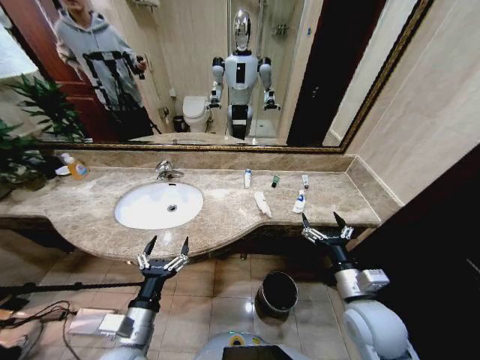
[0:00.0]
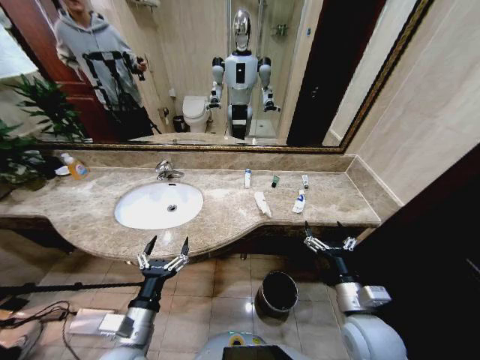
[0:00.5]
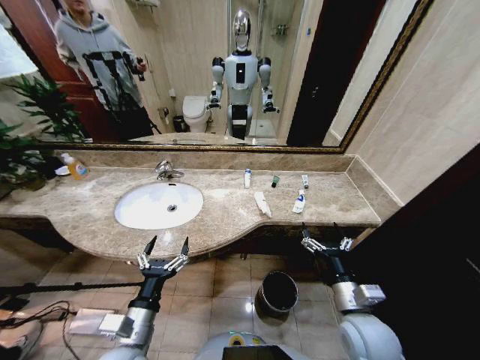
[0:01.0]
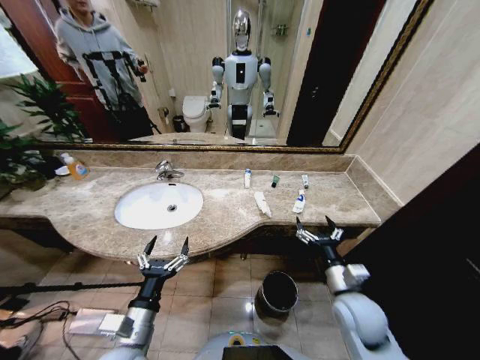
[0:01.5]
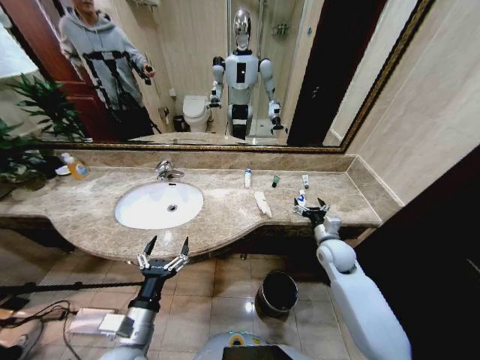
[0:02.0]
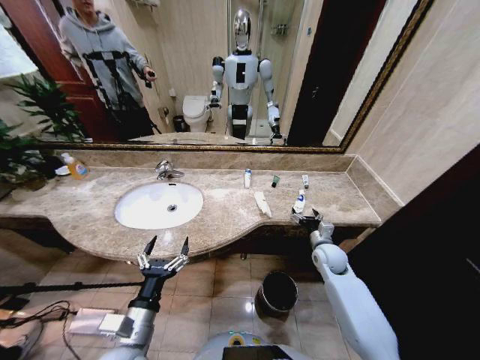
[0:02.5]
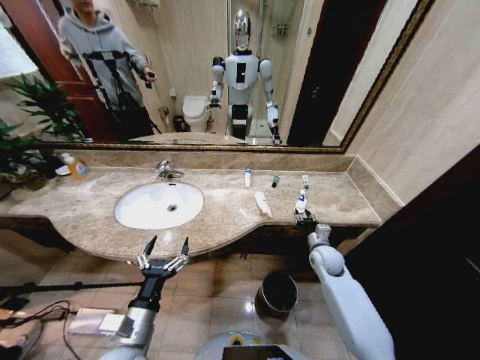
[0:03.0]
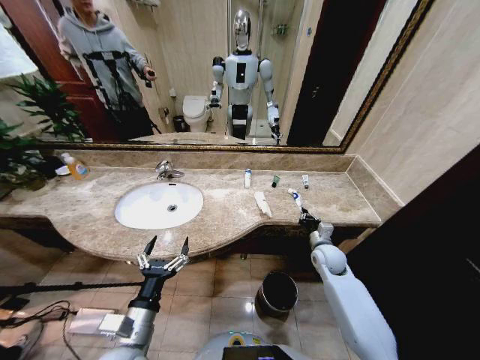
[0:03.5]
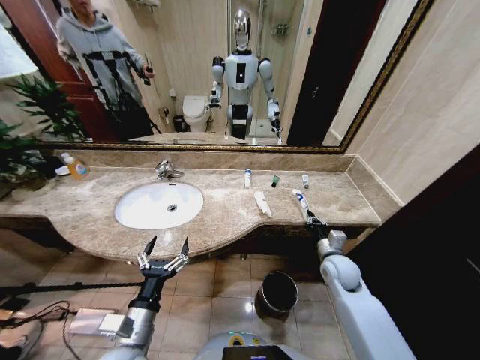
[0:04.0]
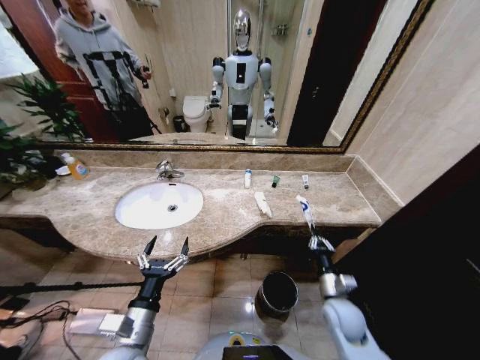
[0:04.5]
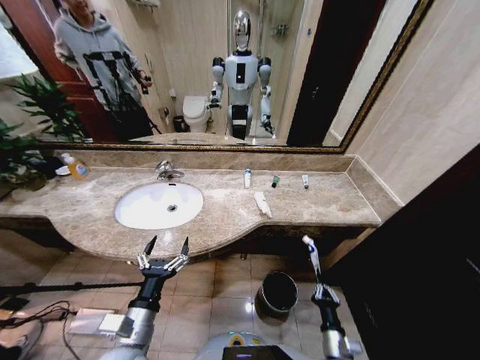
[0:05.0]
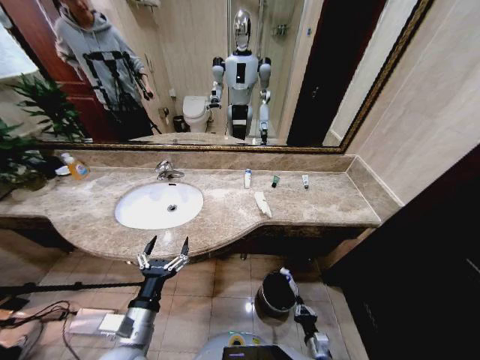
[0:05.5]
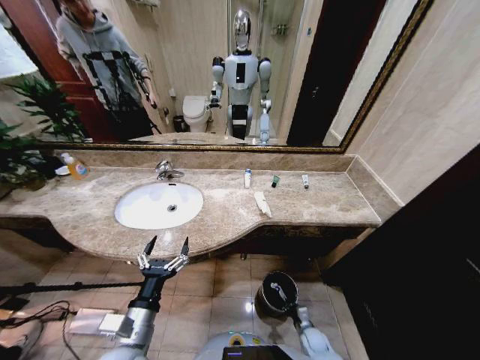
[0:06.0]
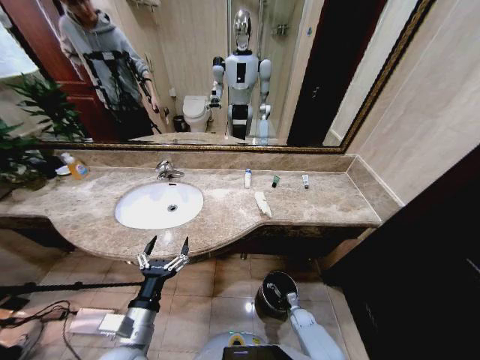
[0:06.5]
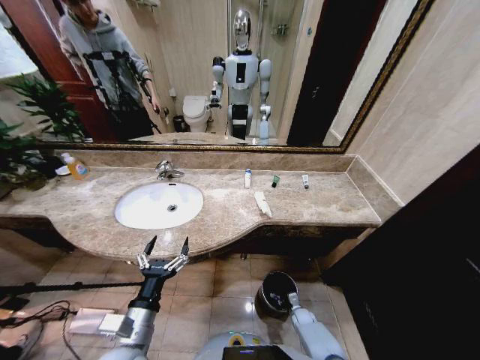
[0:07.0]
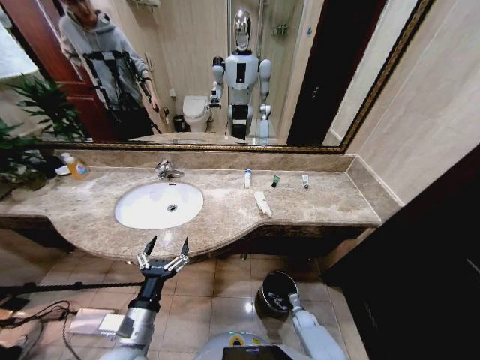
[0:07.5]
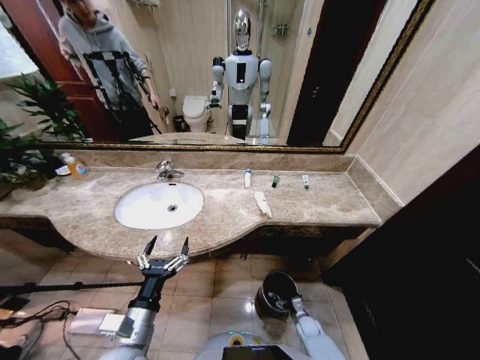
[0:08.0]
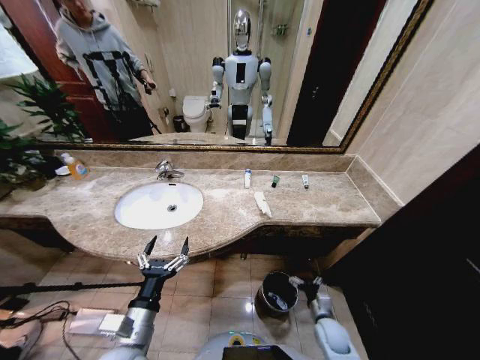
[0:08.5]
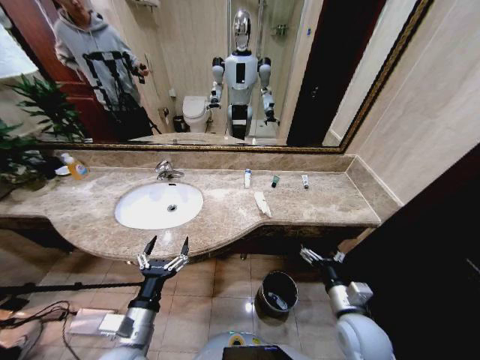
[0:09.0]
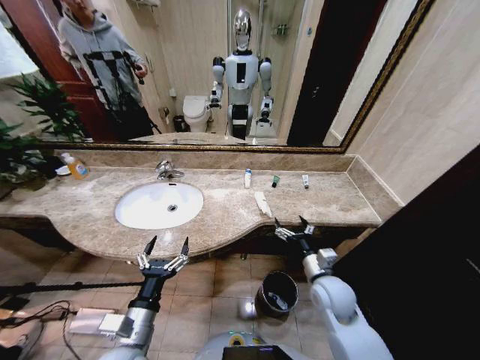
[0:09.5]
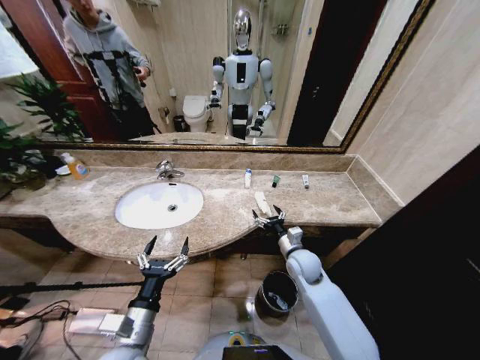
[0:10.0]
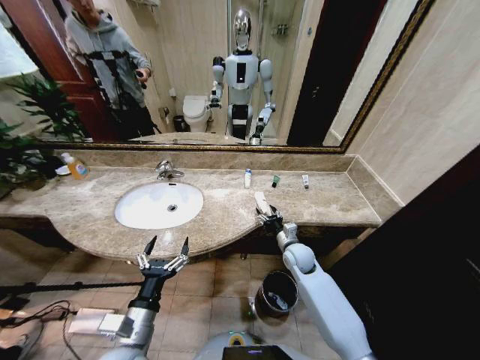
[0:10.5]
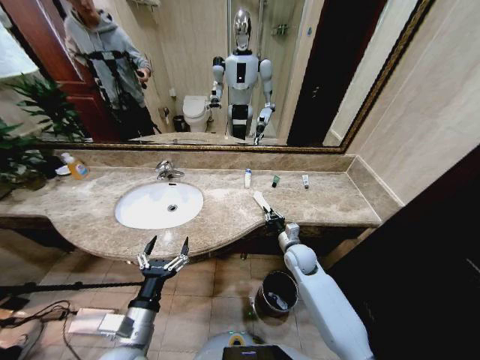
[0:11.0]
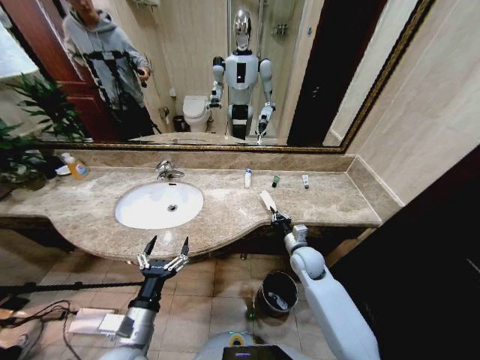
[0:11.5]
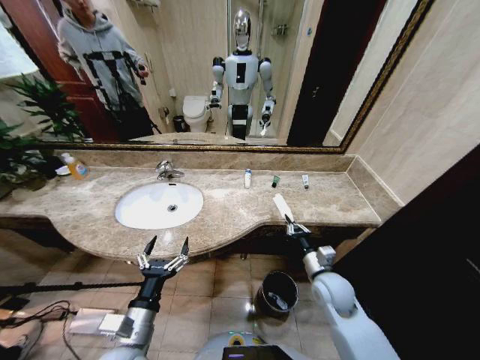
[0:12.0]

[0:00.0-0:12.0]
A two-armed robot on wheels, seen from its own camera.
Task of the whole recording: Pick up the trash from the sink and place it in the trash bin.
0:02.0 to 0:04.0: The right gripper closes.
0:04.0 to 0:06.0: The right gripper moves downward and backward, roughly 35 cm.
0:06.0 to 0:08.0: The right gripper opens its fingers.
0:08.0 to 0:10.0: The right gripper moves upward, roughly 35 cm.
0:10.0 to 0:12.0: The right gripper is displaced backward by approximately 10 cm, and closes its fingers.

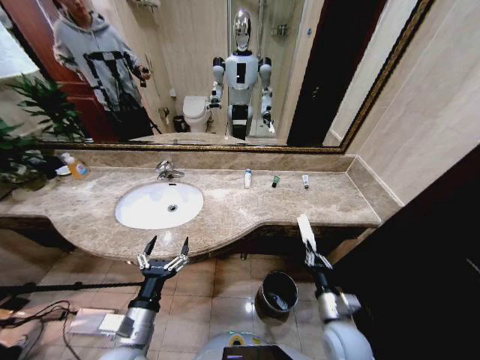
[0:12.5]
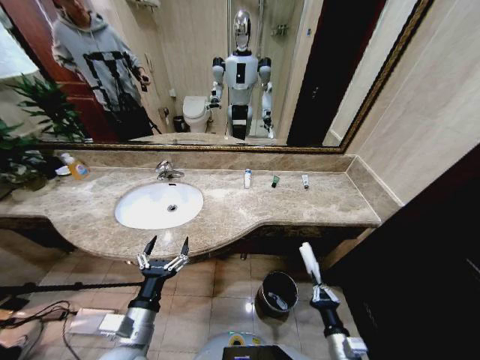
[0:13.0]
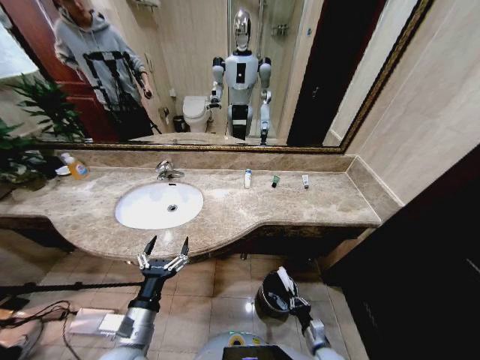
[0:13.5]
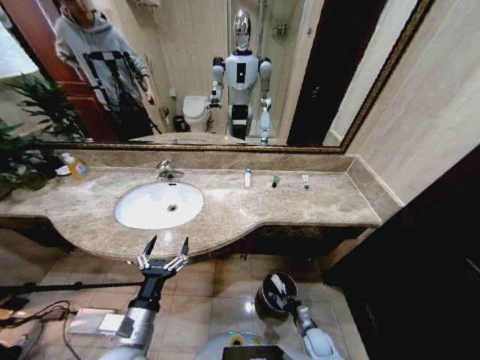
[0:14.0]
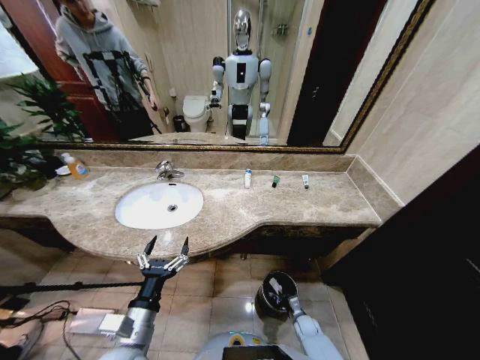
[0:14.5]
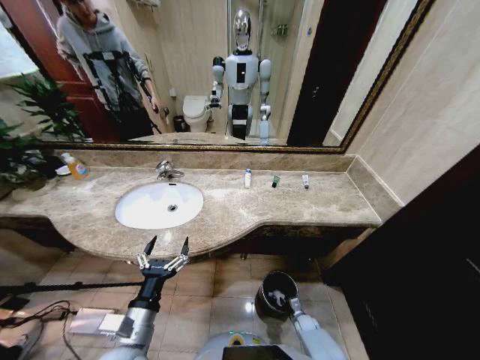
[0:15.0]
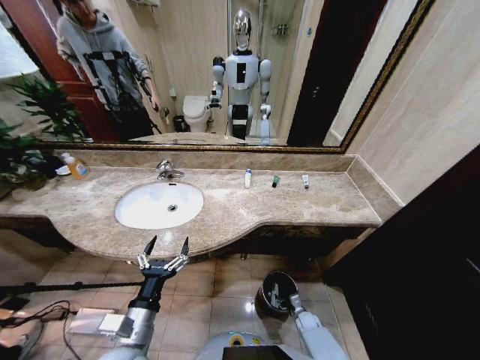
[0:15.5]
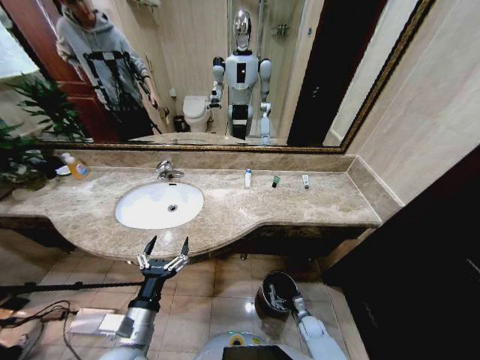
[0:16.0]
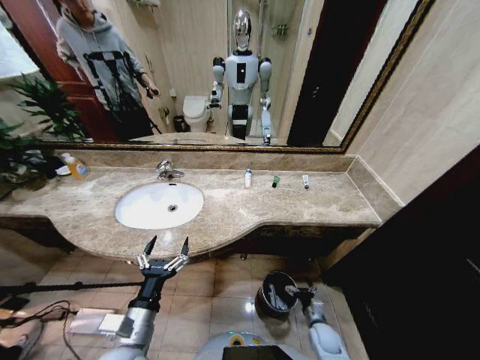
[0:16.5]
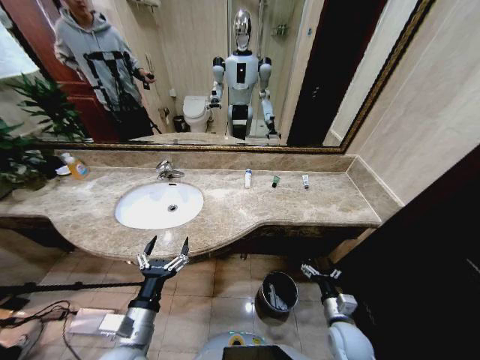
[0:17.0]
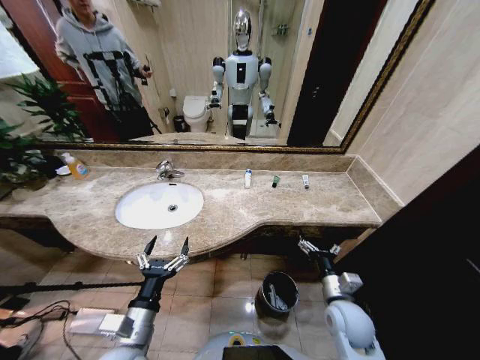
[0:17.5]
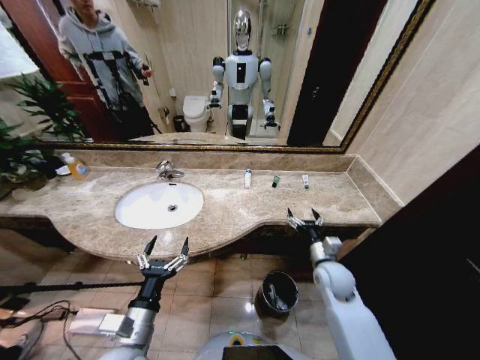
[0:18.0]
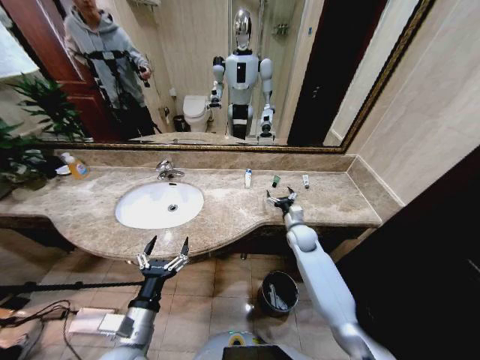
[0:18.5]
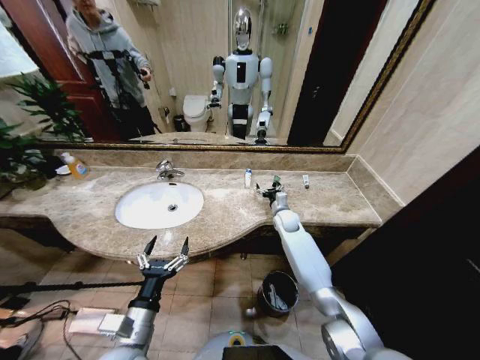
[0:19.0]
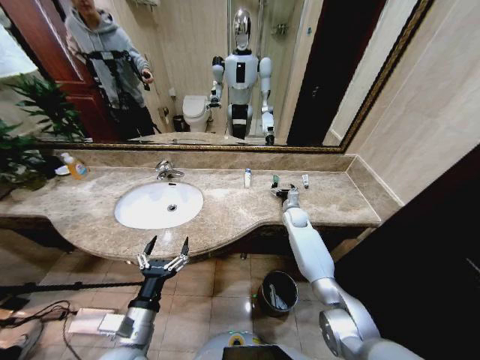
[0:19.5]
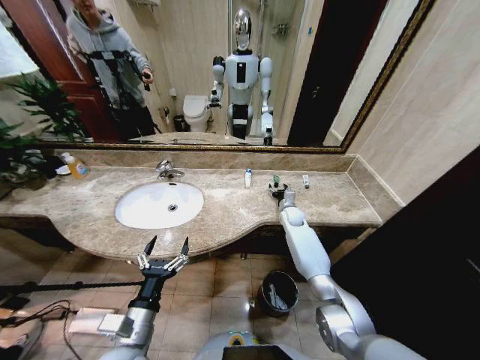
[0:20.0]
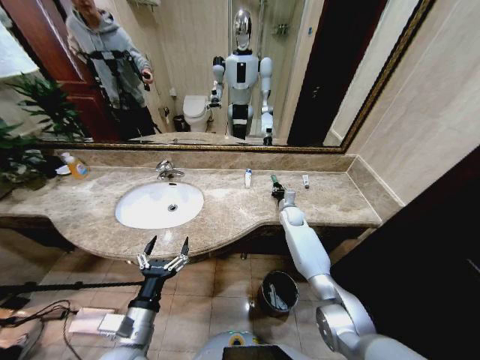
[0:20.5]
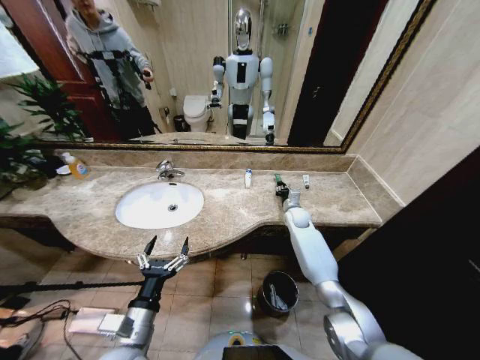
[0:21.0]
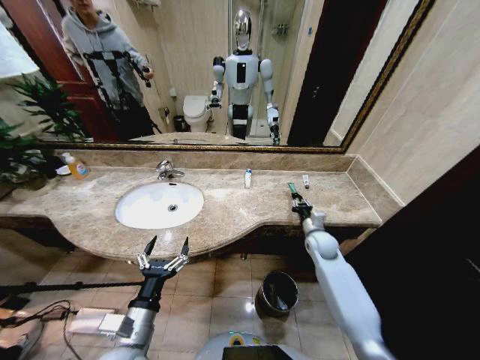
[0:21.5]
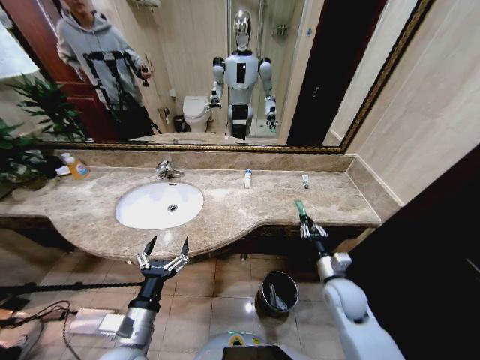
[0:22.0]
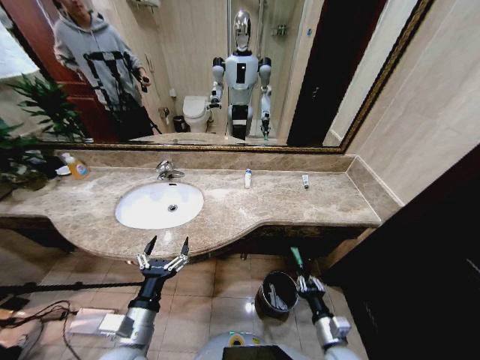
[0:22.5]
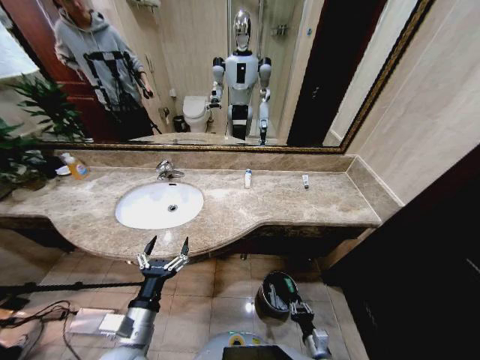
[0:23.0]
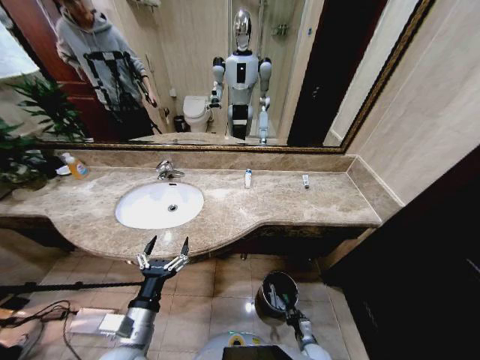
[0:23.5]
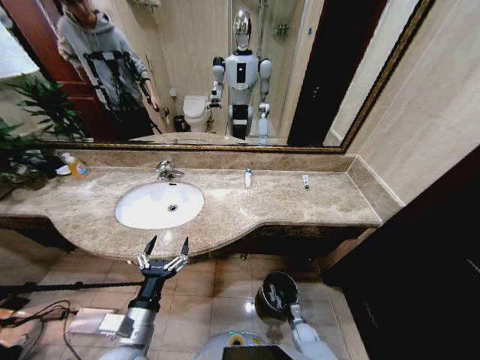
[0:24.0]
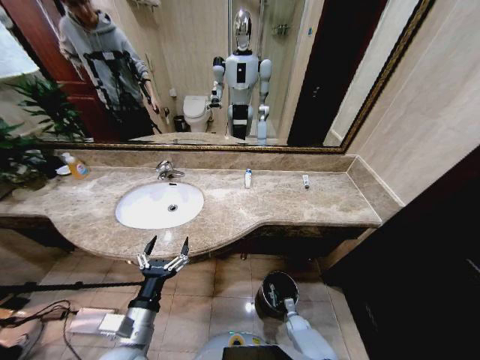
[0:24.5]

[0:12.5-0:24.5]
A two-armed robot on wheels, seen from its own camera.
Task of the whole recording: Pick up the trash from the sink and place it in the trash bin.
0:12.5 to 0:14.5: The right gripper travels downward by about 30 cm.
0:14.5 to 0:16.5: The right gripper moves upward, about 10 cm, and opens its fingers.
0:16.5 to 0:18.5: The right gripper heads forward and upward, covering roughly 35 cm.
0:18.5 to 0:20.5: The right gripper heads forward, covering roughly 10 cm, and closes up.
0:20.5 to 0:22.5: The right gripper moves backward, about 40 cm.
0:22.5 to 0:24.5: The right gripper travels downward and forward by some 30 cm.

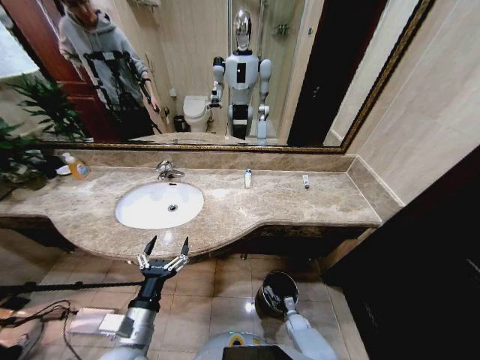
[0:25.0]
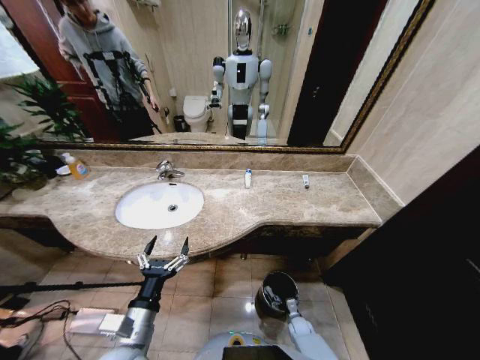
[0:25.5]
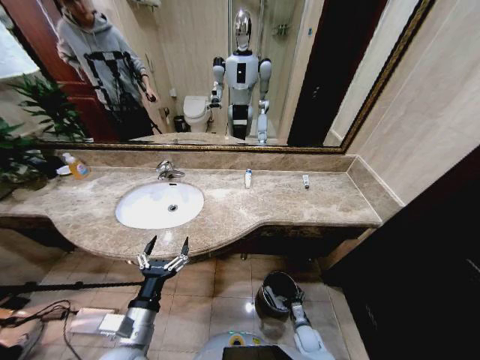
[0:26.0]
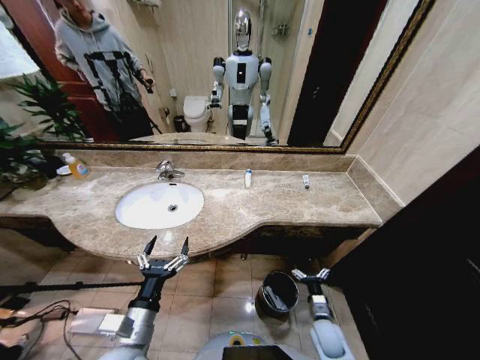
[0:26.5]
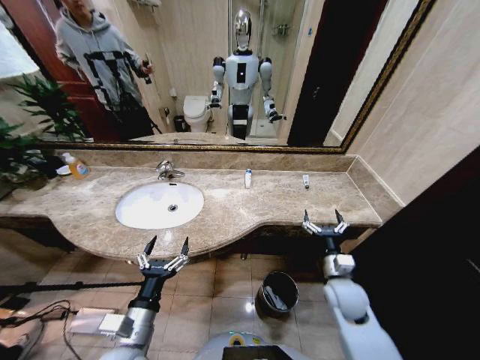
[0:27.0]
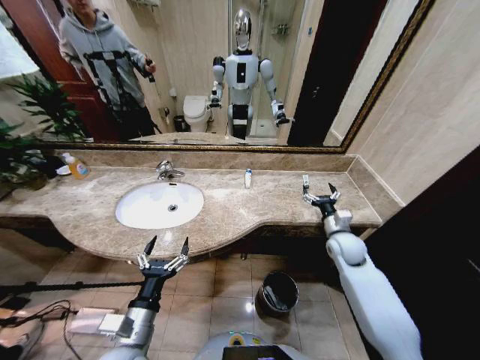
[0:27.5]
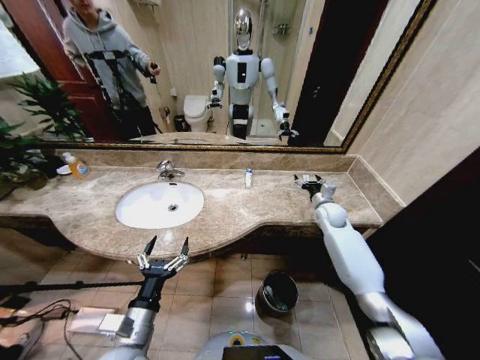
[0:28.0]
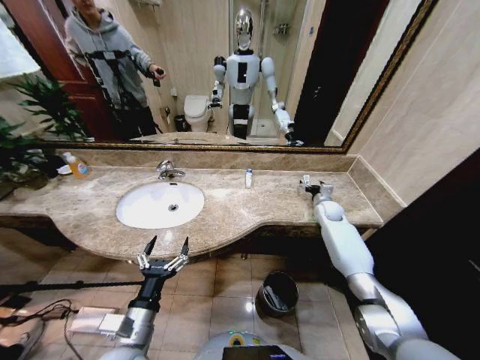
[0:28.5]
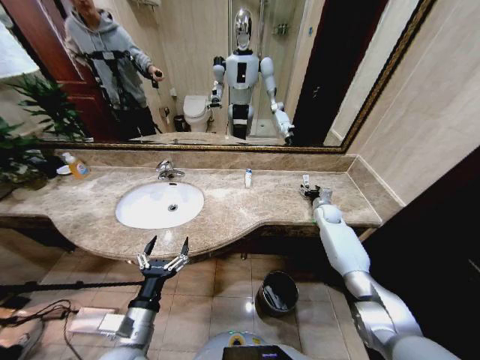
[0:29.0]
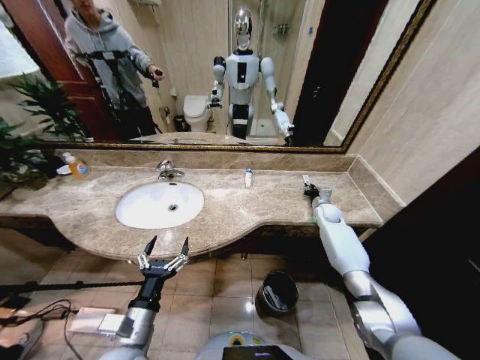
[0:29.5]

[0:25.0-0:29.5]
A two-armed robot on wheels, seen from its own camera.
Task of the whole recording: Pick up the trash from the sink and place it in the trash bin.
0:25.0 to 0:27.0: The right gripper moves upward, approximately 35 cm.
0:27.0 to 0:29.5: The right gripper moves forward, about 30 cm, and closes its fingers.
